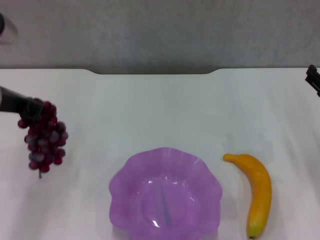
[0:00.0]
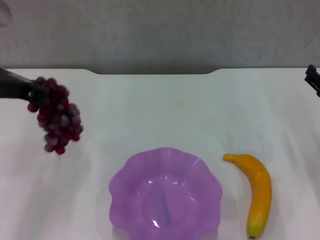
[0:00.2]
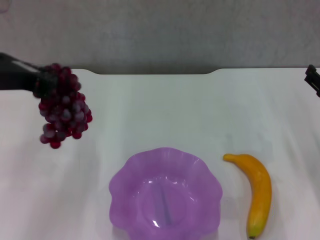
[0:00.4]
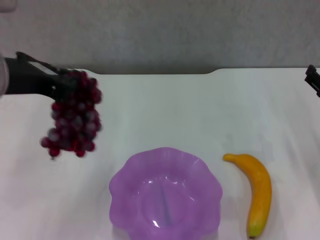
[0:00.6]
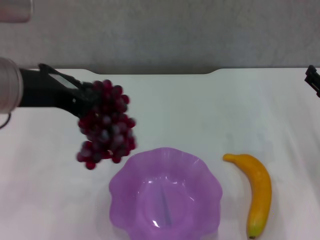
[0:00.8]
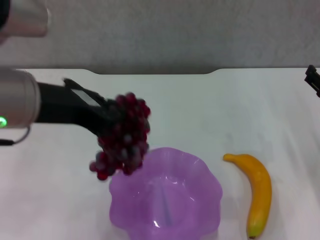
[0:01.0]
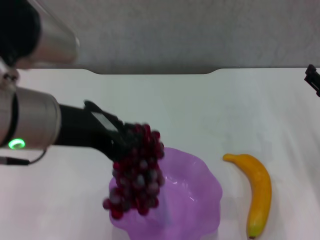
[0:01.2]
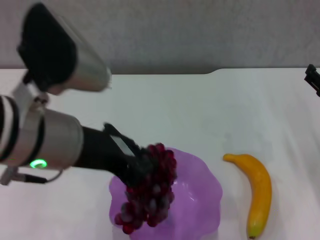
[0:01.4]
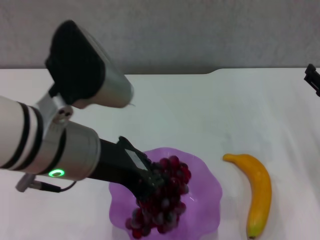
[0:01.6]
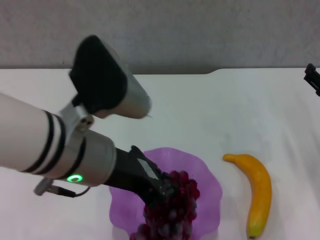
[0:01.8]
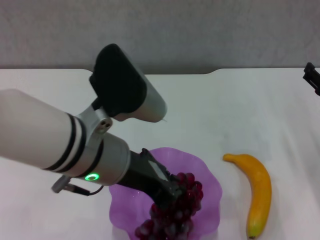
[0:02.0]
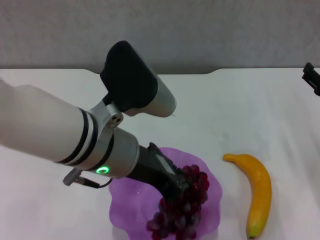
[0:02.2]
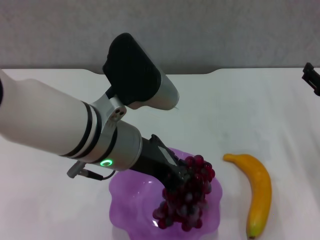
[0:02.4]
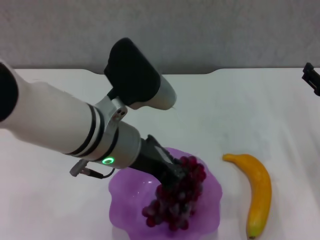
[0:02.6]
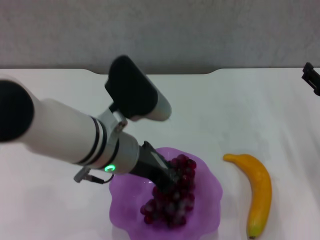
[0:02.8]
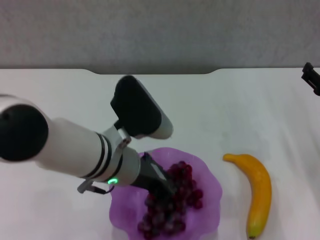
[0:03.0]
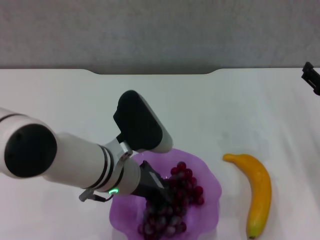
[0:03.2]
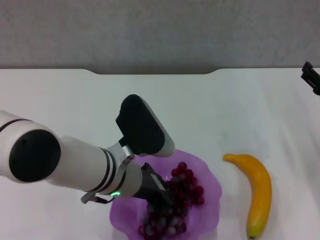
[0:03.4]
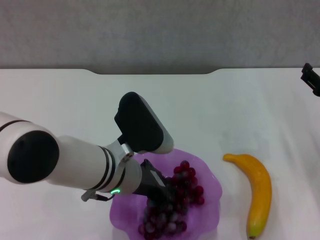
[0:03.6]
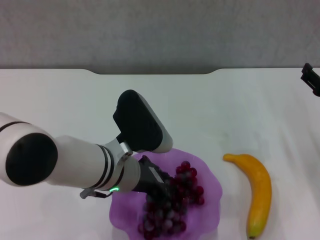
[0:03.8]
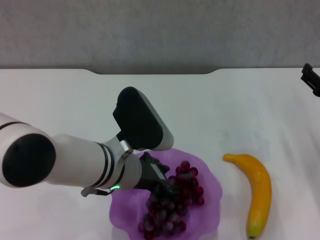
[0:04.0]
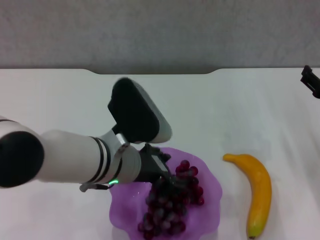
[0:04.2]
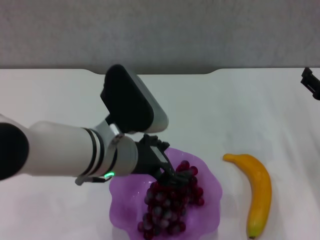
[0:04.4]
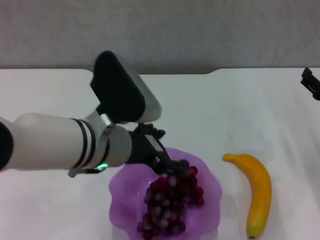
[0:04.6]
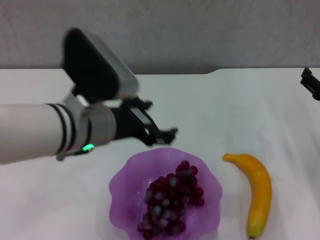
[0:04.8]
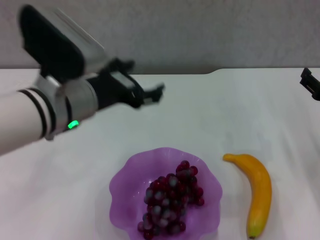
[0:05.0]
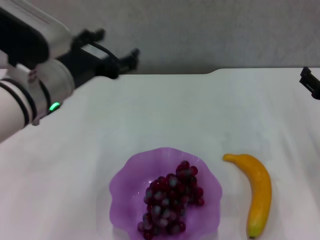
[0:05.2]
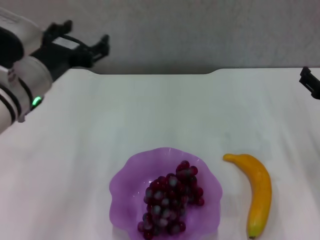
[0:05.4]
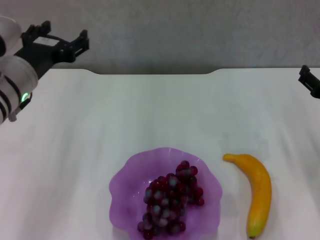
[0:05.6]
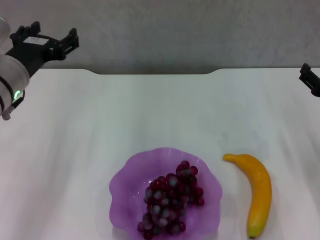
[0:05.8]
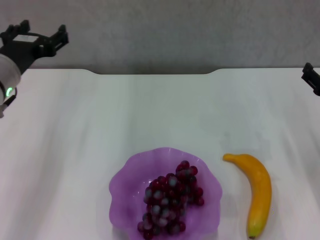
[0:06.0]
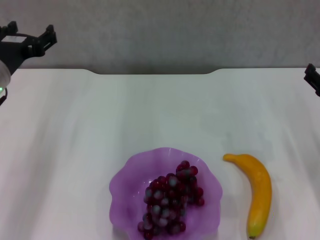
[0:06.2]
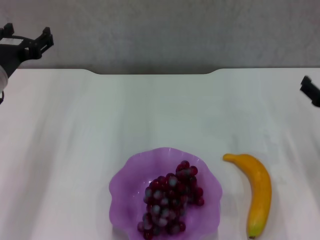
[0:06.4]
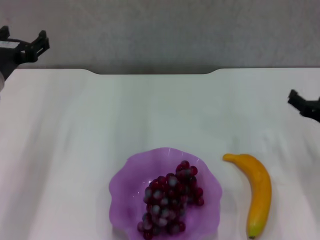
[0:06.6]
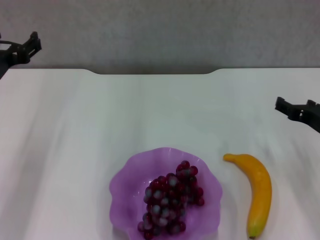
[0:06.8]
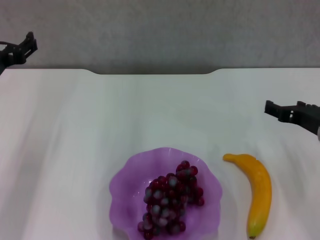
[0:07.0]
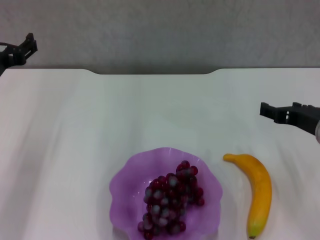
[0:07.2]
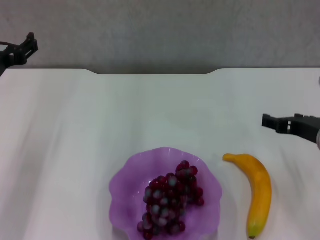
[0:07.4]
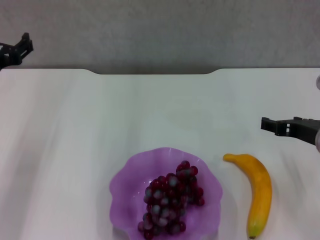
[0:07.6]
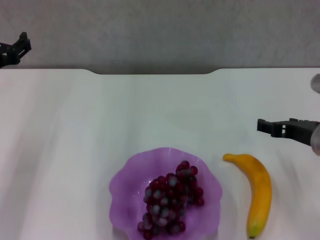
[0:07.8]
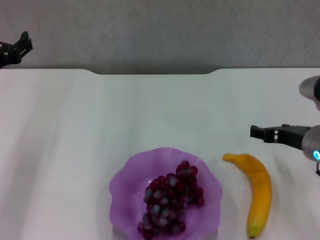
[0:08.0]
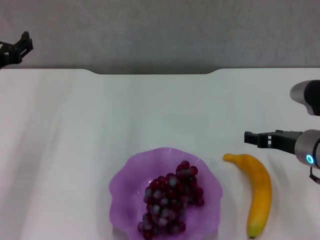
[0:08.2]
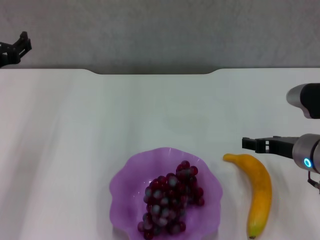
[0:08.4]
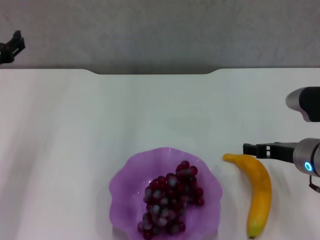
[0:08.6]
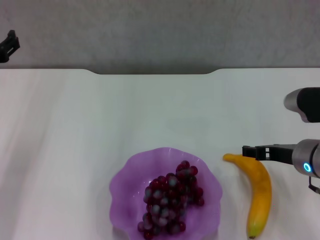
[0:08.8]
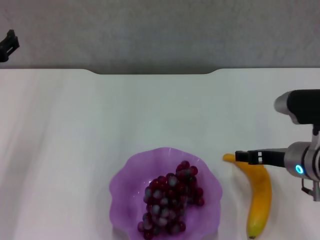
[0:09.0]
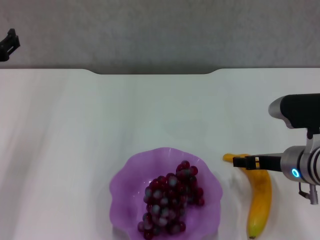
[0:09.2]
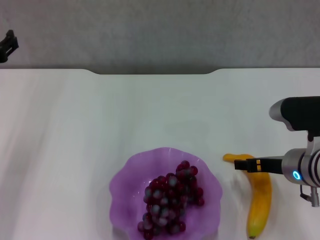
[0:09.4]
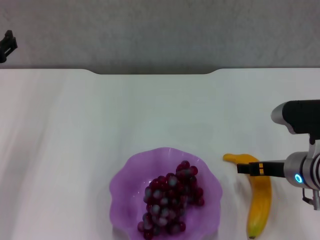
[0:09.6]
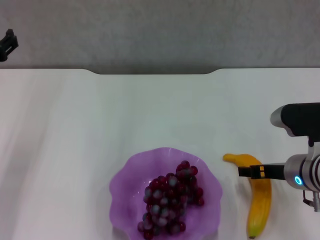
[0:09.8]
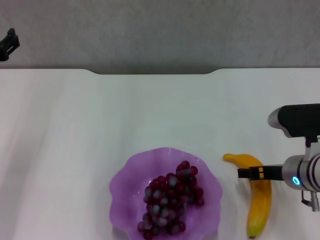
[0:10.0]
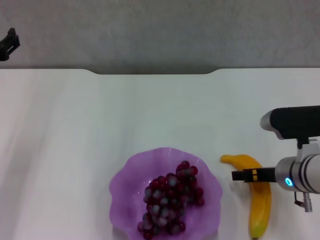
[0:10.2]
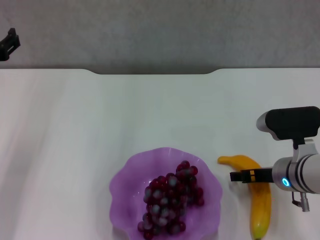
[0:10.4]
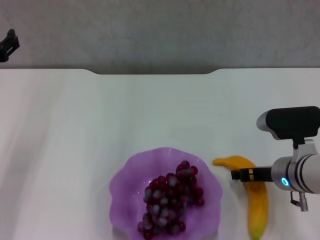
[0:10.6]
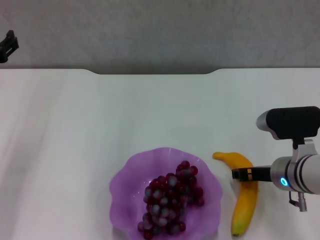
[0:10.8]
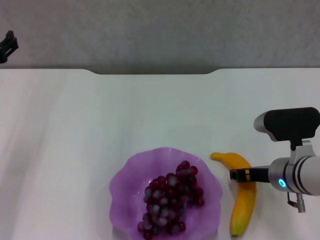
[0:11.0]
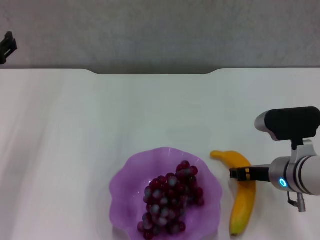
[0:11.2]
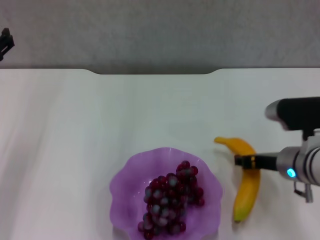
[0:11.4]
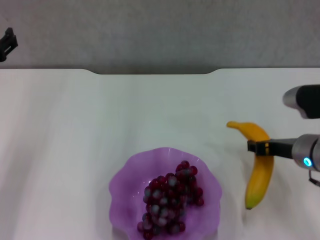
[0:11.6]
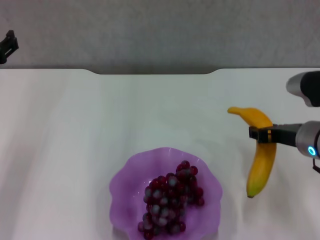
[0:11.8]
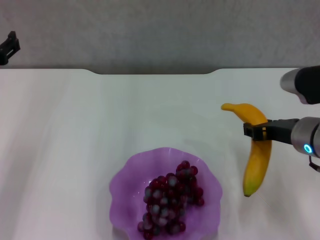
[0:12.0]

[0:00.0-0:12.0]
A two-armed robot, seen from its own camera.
Step, 0:00.0 to 0:04.2: Place the grape in the purple plate with left gripper.
Step, 0:04.4 to 0:11.0: Grasp the banana with right gripper.
0:00.0 to 0:01.6: The left gripper is displaced to the right and backward by some 15 cm.
0:01.6 to 0:03.0: The left gripper heads downward and forward, covering approximately 10 cm.
0:03.0 to 0:04.4: The left gripper opens.
0:04.4 to 0:06.0: The left gripper shifts roughly 15 cm to the left and forward.
0:06.0 to 0:07.6: The right gripper travels to the left by about 5 cm.
0:07.6 to 0:09.0: The grippers stay close to where they were, moving slightly.
0:09.0 to 0:10.4: The grippers make only small movements.
0:10.4 to 0:12.0: The right gripper shifts about 5 cm upward, and closes its fingers.

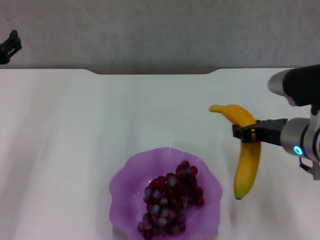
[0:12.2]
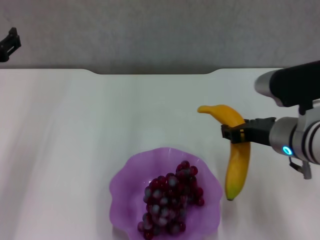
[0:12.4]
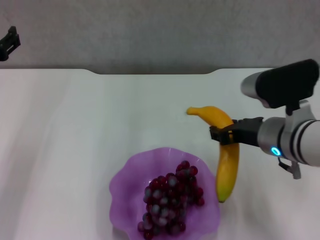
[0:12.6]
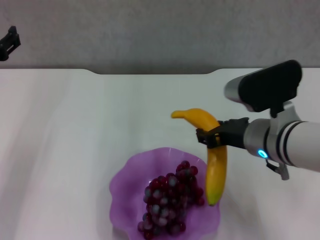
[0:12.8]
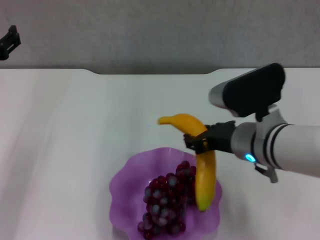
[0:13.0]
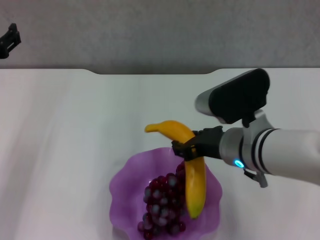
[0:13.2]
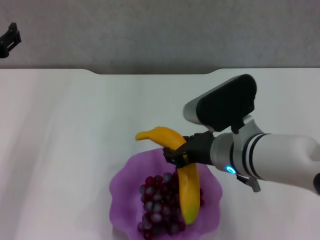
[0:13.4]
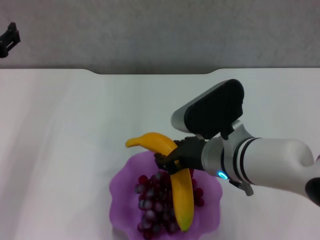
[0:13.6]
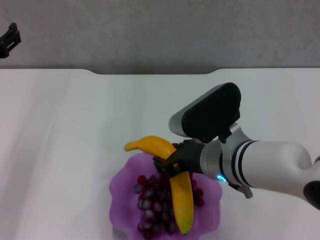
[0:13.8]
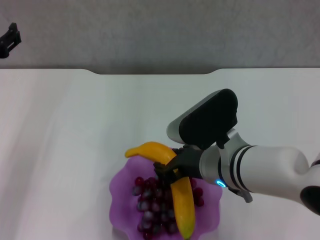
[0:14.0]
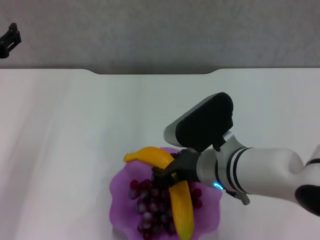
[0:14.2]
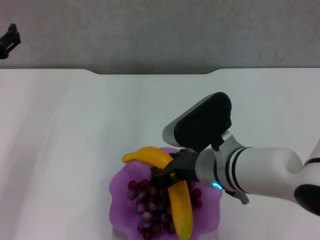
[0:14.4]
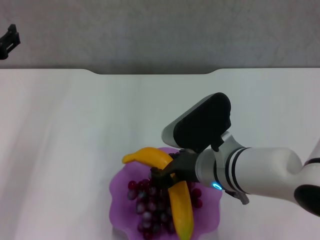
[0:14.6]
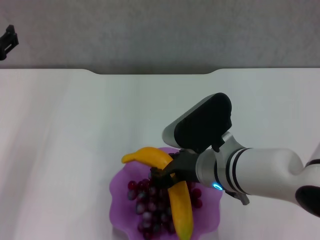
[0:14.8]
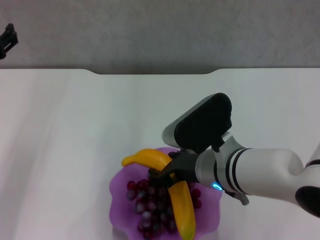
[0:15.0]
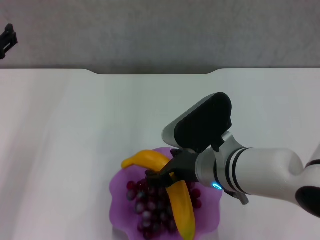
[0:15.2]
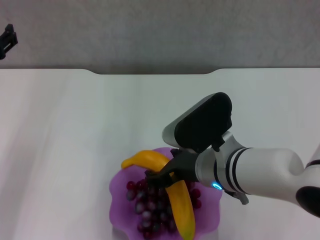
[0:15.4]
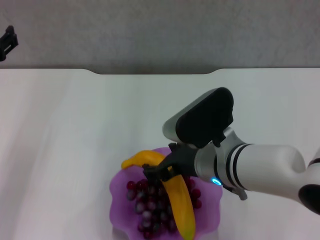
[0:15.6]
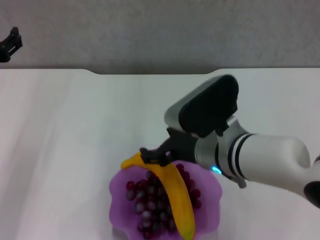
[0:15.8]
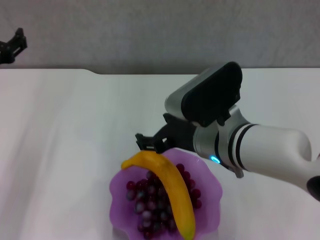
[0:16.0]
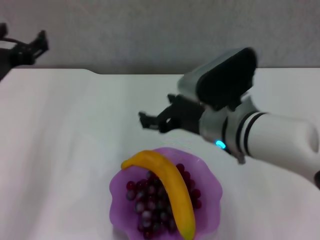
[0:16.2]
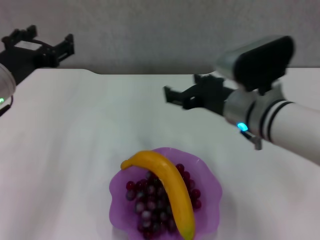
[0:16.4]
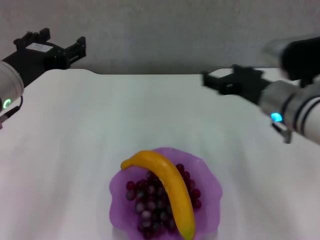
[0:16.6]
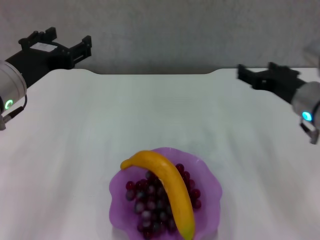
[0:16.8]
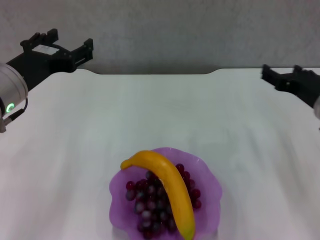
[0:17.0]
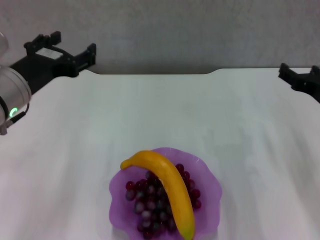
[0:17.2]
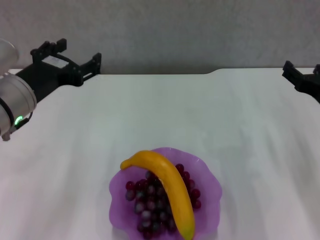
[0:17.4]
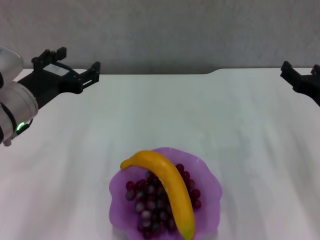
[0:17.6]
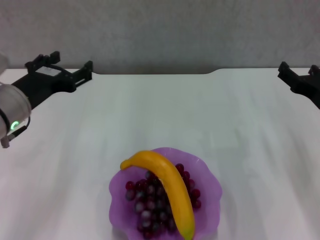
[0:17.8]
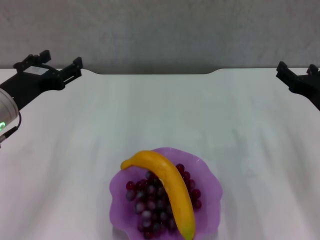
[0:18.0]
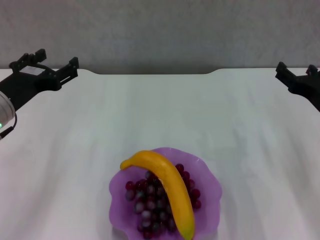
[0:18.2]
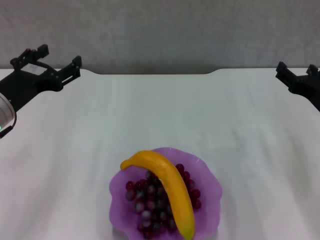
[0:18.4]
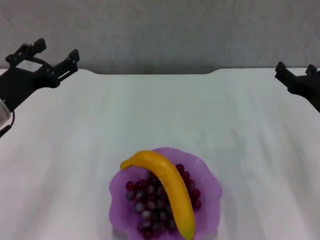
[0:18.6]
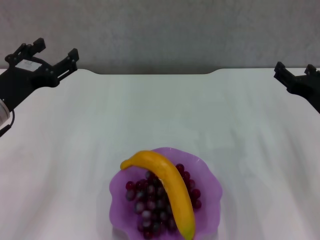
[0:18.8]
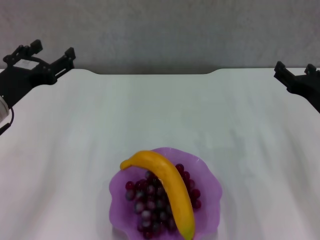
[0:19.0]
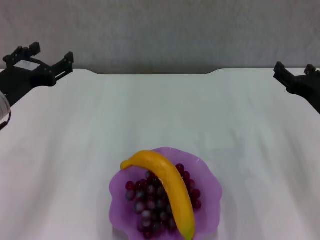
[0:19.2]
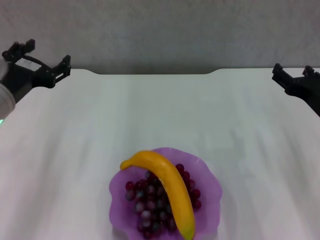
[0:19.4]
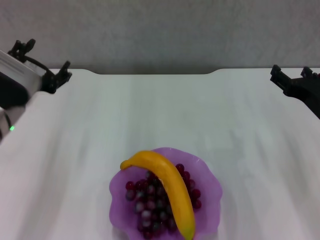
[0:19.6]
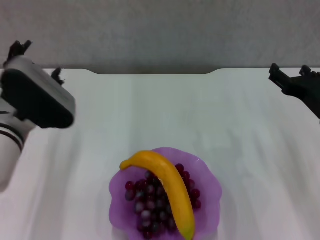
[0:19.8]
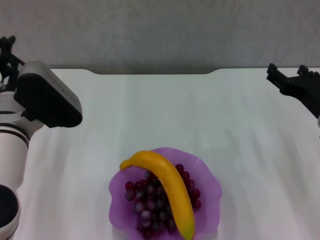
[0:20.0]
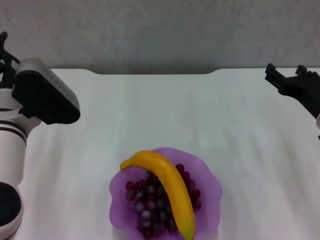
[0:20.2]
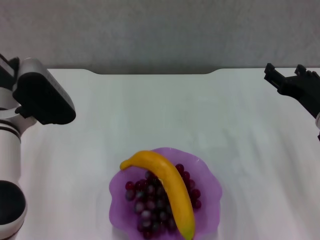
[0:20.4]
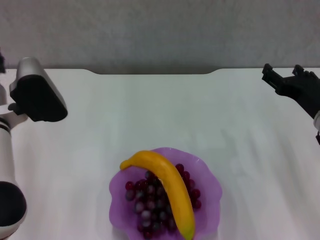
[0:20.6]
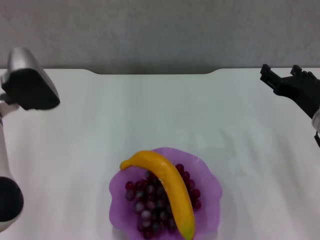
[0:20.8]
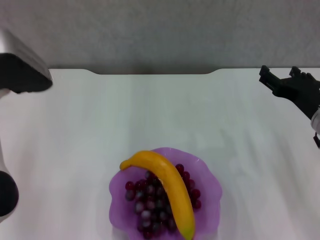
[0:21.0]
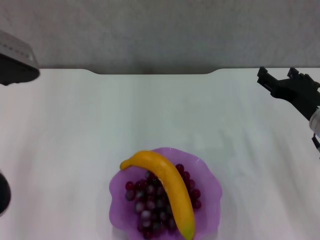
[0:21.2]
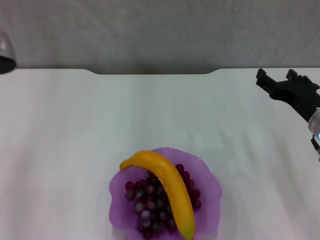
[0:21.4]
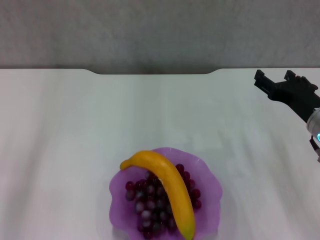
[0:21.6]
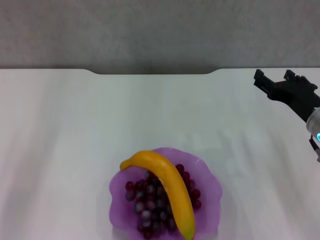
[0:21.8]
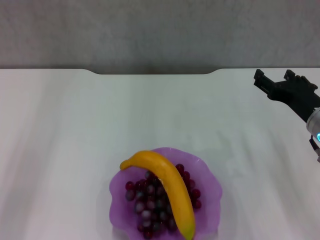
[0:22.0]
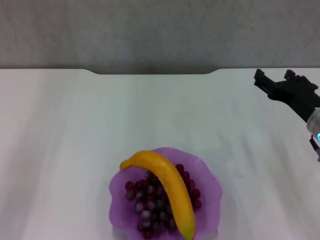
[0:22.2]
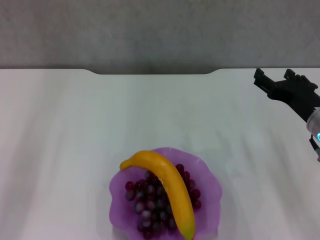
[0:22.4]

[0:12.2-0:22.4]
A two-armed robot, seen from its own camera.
Step, 0:12.2 to 0:15.6: Place the banana in the purple plate with right gripper.
0:12.2 to 0:13.6: The right gripper goes about 10 cm to the left.
0:13.6 to 0:15.2: The grippers move only a little.
0:15.2 to 0:16.6: The right gripper shifts some 10 cm to the right and forward, and opens; the left gripper shifts some 5 cm to the right.
0:16.6 to 0:18.0: The right gripper heads to the right, covering about 10 cm.
0:18.0 to 0:19.4: The grippers move only a little.
0:21.0 to 0:22.4: The left gripper travels upward by about 5 cm.
